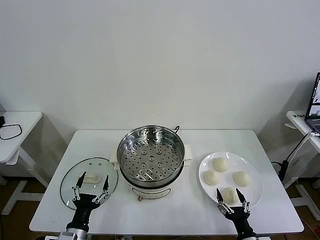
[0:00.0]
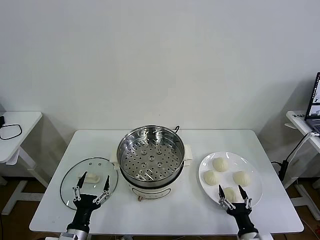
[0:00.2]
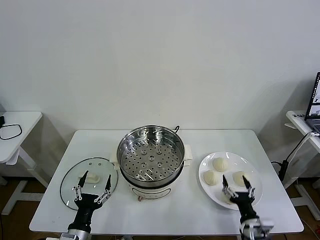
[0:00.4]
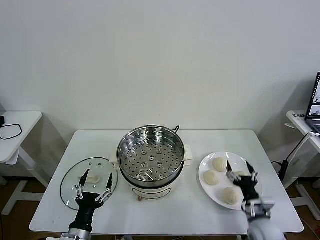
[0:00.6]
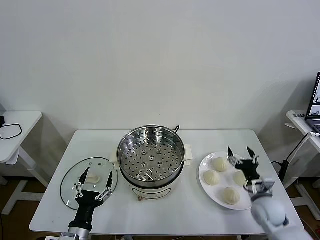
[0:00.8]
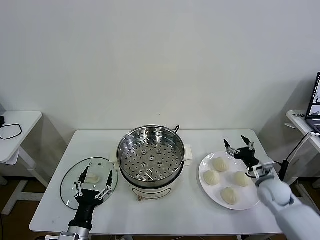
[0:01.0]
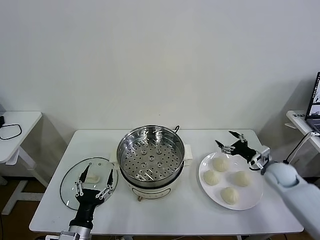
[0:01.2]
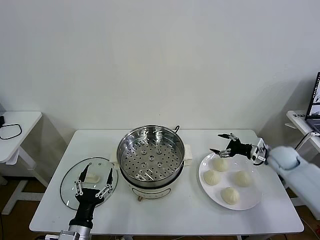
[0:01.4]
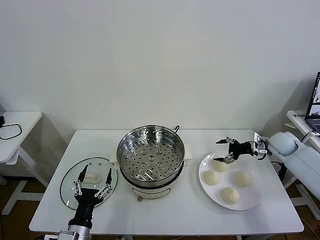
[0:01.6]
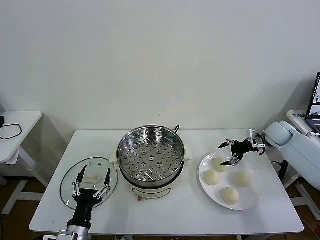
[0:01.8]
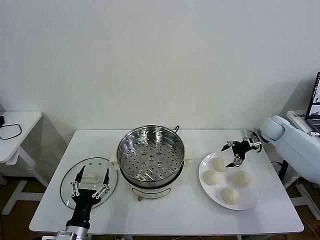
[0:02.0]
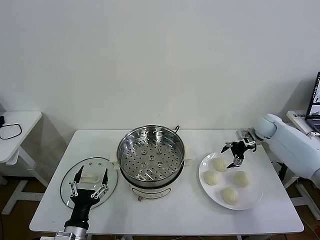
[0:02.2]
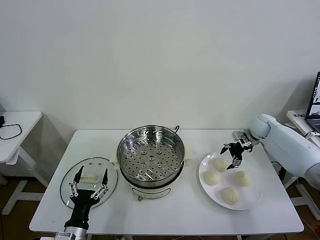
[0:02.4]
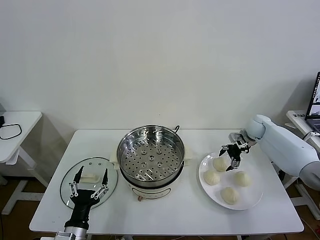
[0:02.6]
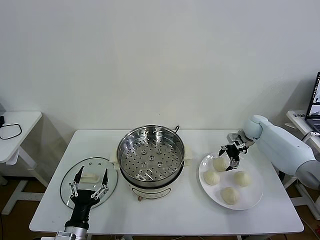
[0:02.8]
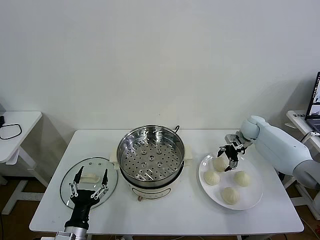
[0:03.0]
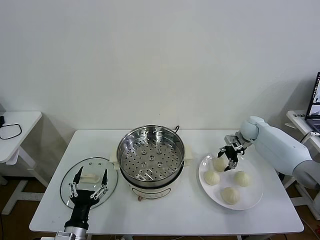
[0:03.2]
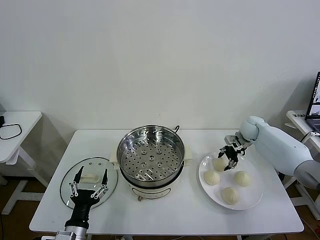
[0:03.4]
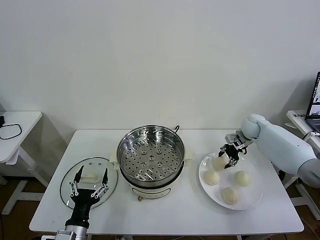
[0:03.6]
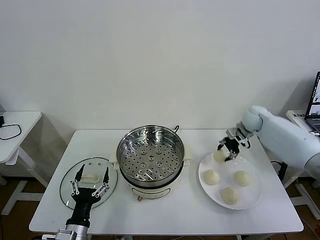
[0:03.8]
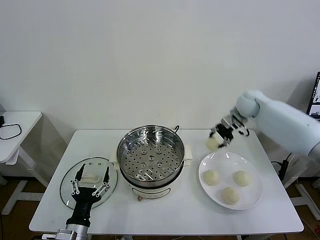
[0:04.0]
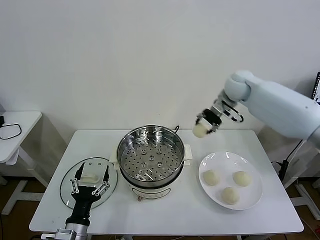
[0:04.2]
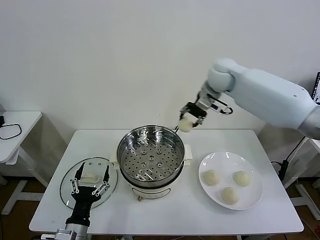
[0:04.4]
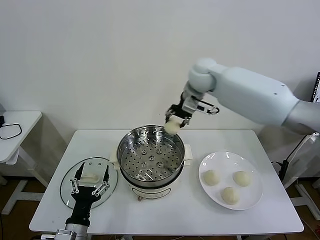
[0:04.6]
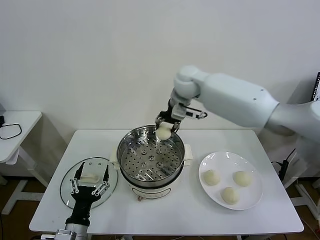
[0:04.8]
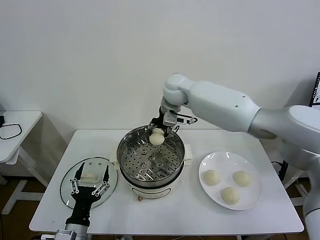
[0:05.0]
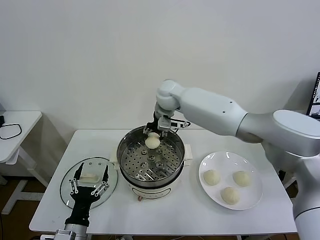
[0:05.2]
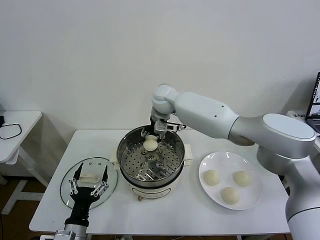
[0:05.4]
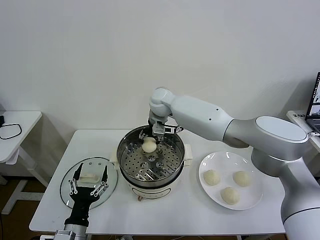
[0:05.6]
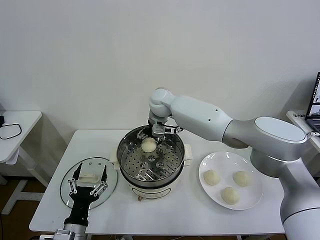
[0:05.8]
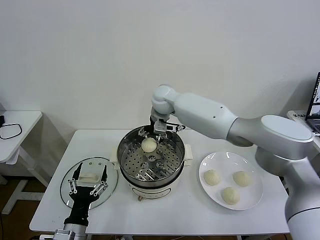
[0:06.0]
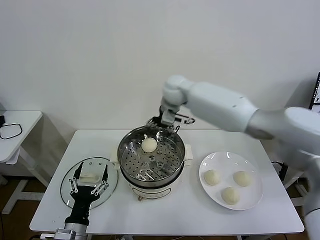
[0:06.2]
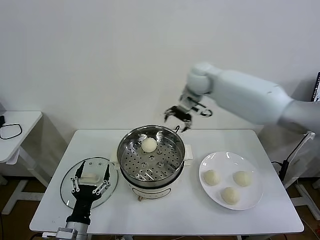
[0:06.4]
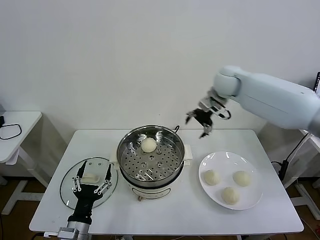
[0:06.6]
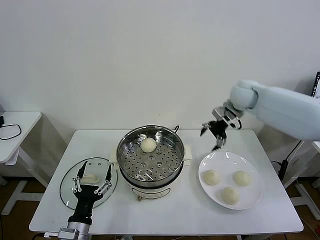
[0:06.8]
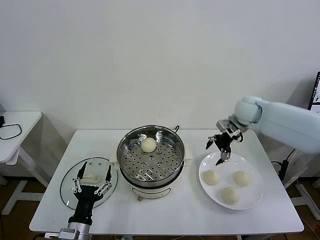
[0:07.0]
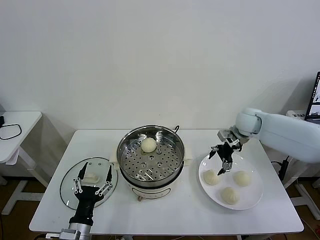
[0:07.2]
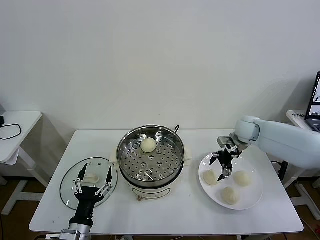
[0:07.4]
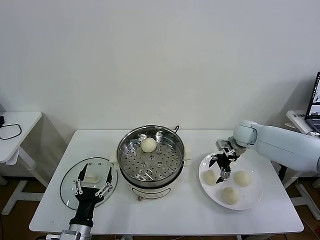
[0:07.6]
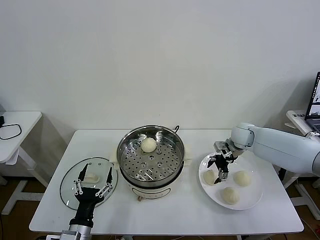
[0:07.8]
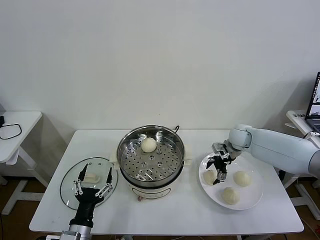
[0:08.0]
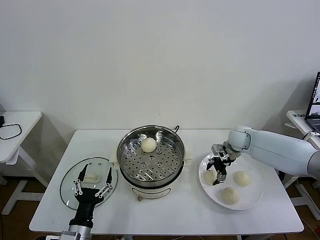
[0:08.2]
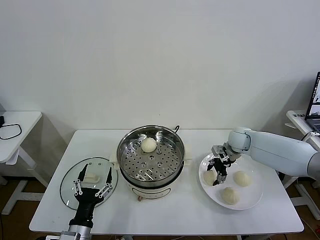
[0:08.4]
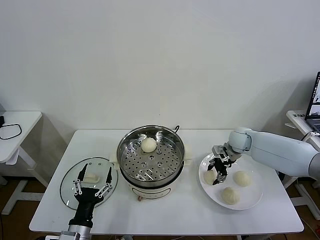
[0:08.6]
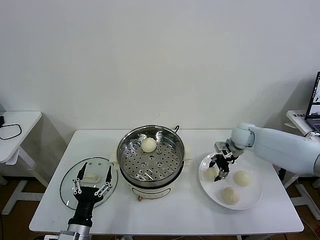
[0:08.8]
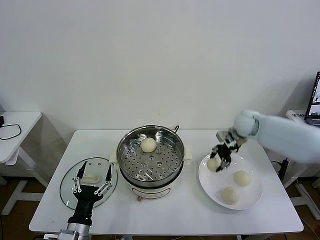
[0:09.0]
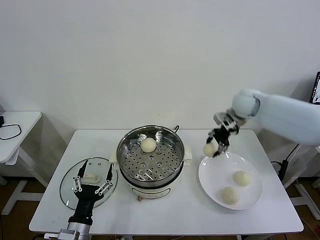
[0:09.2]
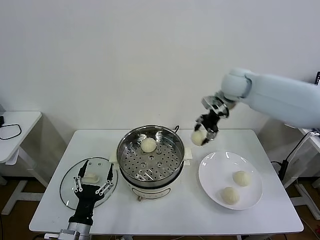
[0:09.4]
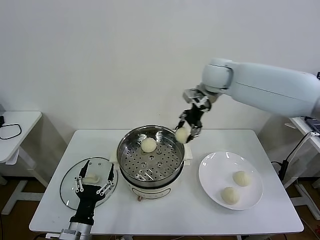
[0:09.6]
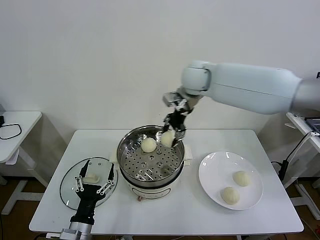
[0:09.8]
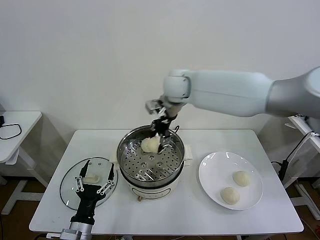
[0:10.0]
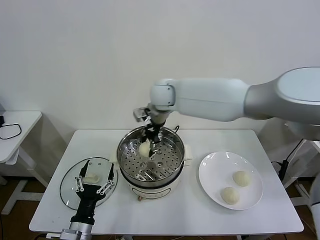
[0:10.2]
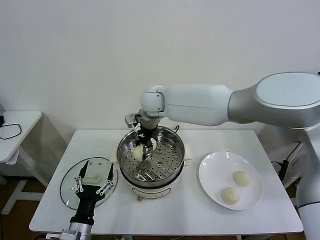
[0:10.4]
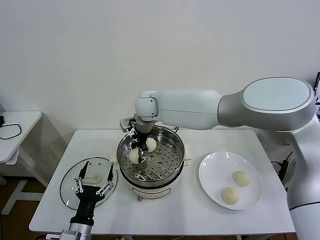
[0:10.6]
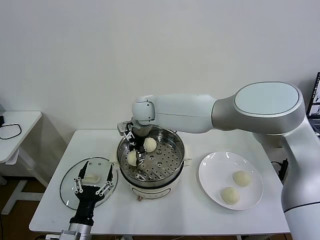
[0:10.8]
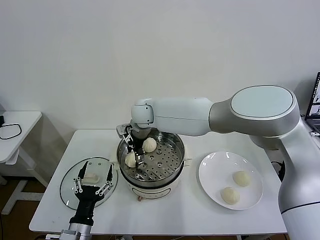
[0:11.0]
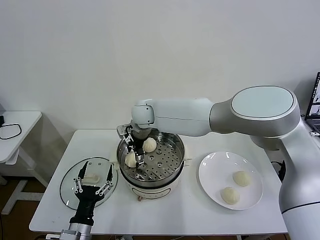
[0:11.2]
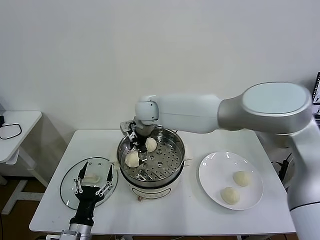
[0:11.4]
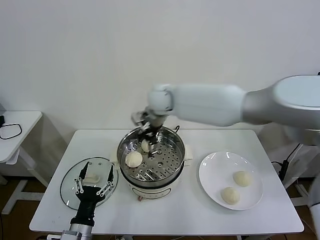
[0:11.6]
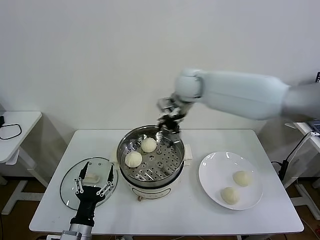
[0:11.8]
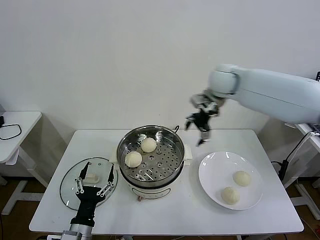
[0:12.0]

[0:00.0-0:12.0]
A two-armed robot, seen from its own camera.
Task of the whole recording: take steamed baozi put them in steamer then cover it.
Step, 0:00.0 to 0:03.4: Grasp the baozi in the plate with right gripper.
Step, 0:03.6 to 0:06.0: Place the baozi on the steamer with right gripper.
Step, 0:06.2 to 0:08.6: Grasp the baozi in the plate with right gripper.
Step, 0:08.8 to 0:11.4: Place the baozi on the steamer with right gripper.
0:01.6 to 0:03.0: The right gripper goes about 10 cm to the left and forward.
0:03.0 to 0:04.4: The right gripper shifts roughly 35 cm upward and to the left, and closes up.
0:04.4 to 0:06.0: The right gripper heads to the left and downward, covering about 15 cm, and opens its fingers.
0:06.0 to 0:07.6: The right gripper shifts roughly 35 cm to the right and downward.
0:07.6 to 0:09.0: The right gripper moves upward, roughly 10 cm, and closes.
0:09.0 to 0:10.4: The right gripper goes some 35 cm to the left.
0:10.4 to 0:12.0: The right gripper moves to the right, about 25 cm, and opens up.

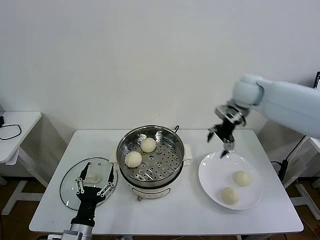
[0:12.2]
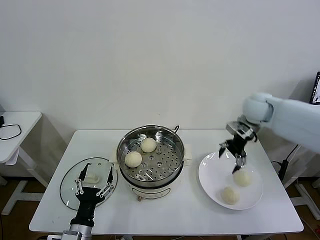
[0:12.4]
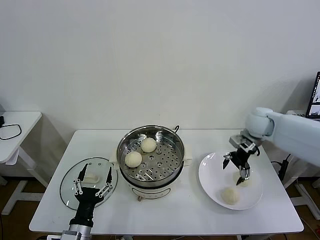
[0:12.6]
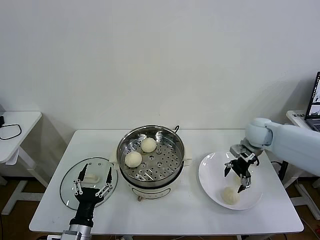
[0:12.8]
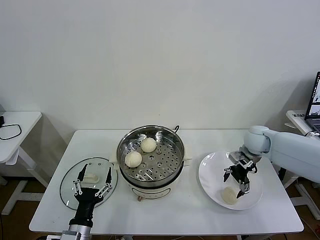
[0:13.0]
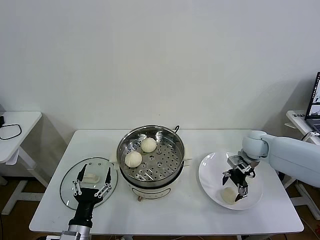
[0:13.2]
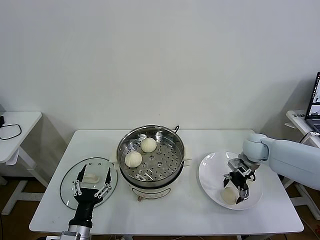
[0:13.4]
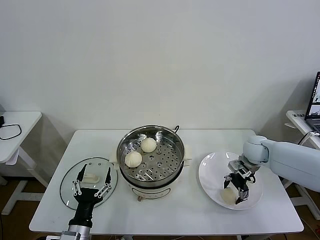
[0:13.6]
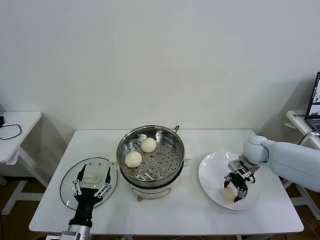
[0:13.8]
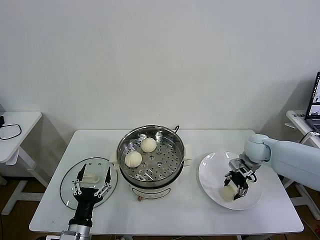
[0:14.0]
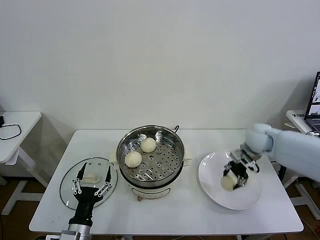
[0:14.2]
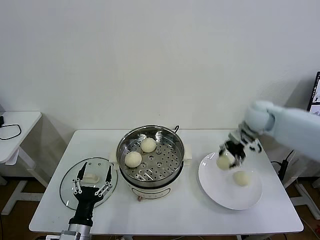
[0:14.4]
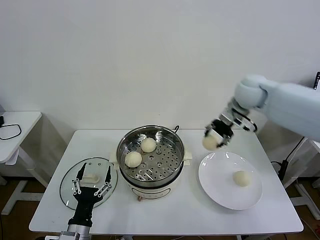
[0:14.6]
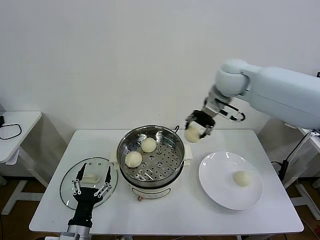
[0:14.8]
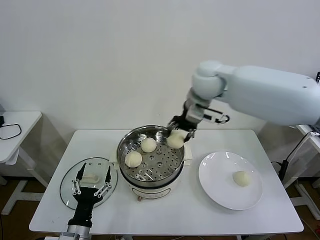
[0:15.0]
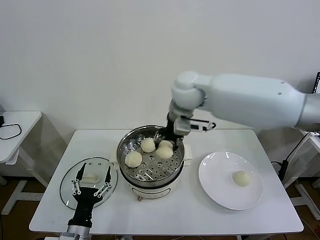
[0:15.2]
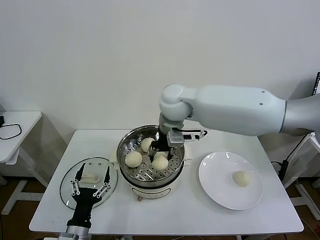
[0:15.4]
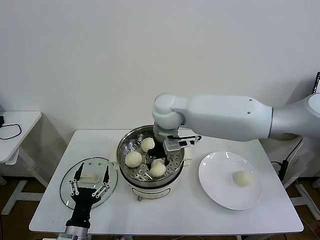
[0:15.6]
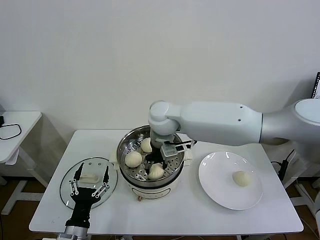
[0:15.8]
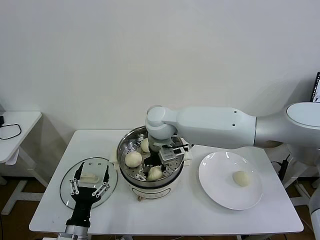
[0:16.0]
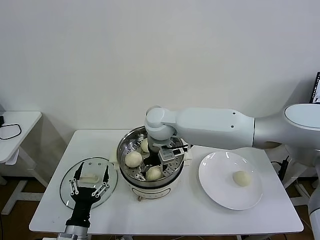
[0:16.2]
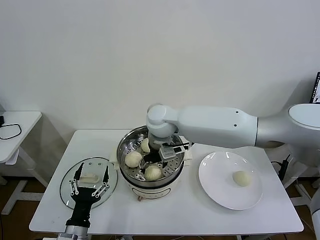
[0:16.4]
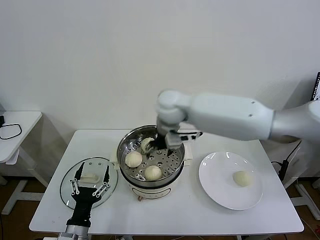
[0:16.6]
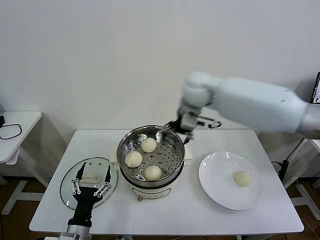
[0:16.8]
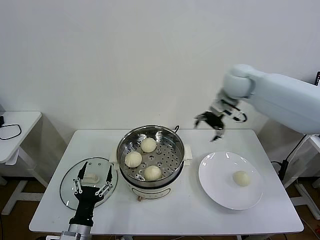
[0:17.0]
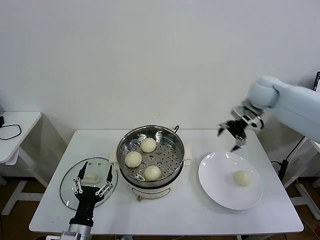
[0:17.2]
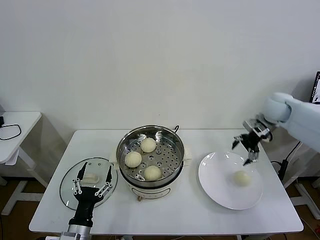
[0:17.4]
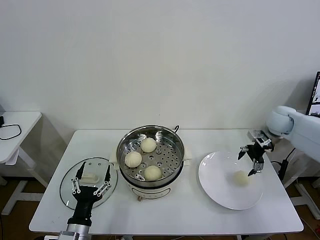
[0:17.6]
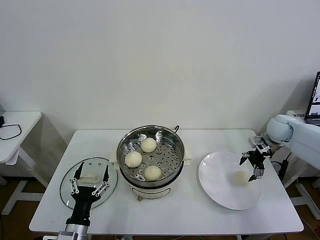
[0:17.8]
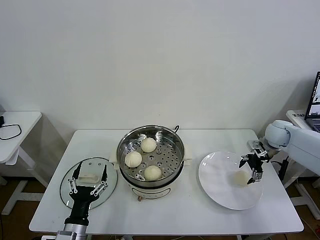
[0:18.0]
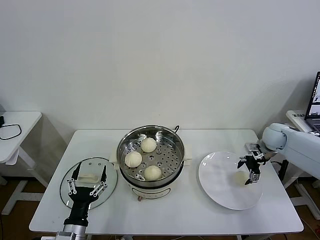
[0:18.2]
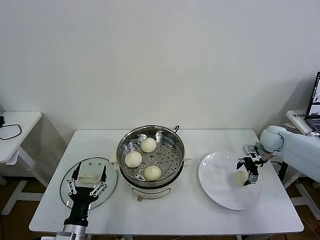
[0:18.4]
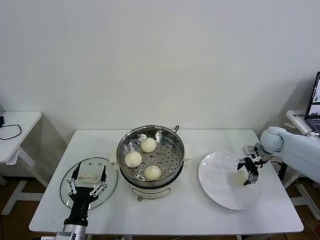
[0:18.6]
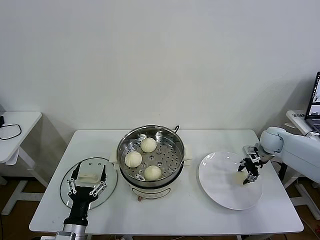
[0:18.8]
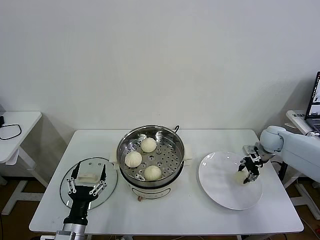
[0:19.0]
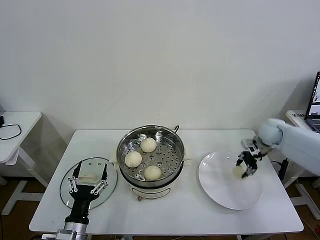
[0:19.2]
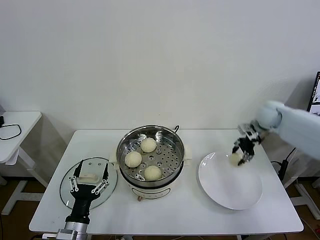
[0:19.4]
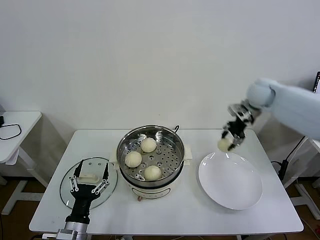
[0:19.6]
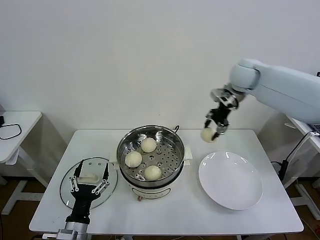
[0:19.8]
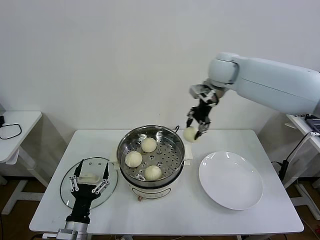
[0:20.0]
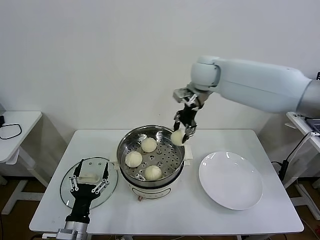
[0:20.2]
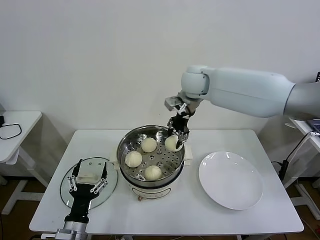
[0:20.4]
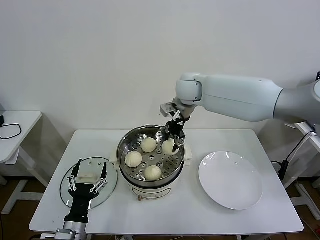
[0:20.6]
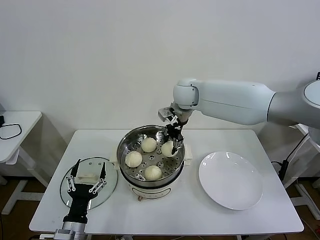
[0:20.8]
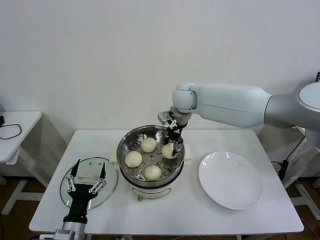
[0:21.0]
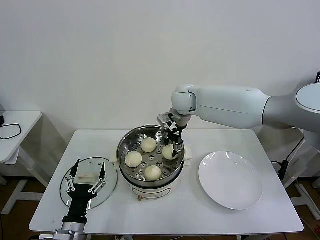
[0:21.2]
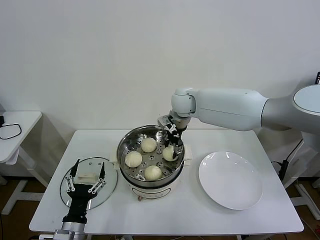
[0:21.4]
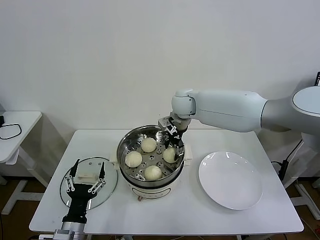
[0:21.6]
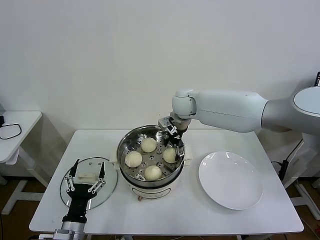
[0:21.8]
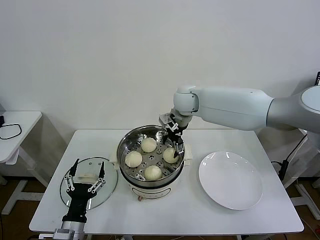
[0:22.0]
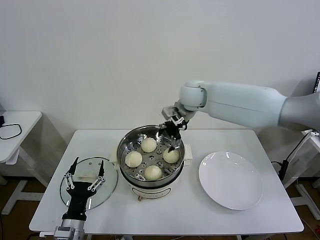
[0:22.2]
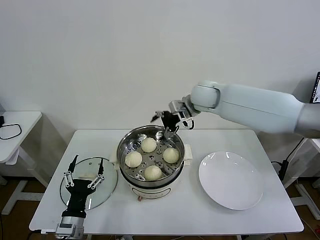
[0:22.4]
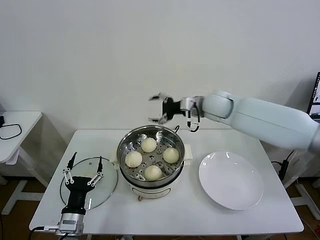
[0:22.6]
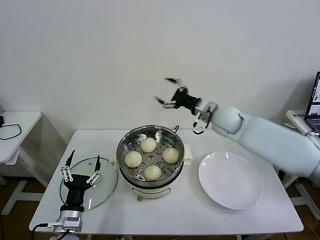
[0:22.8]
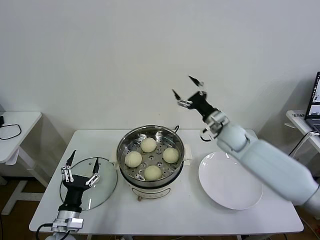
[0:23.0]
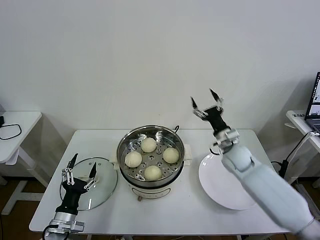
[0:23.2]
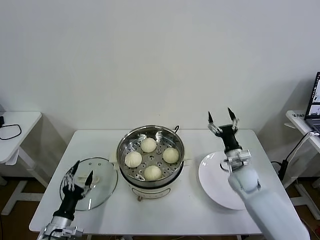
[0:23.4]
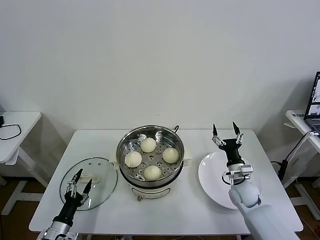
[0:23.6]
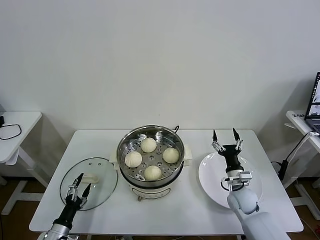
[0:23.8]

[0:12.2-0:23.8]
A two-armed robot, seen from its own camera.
Task of the whole recording: take steamed baozi put them in steamer then cover it.
Step, 0:12.2 to 0:14.0: Grasp the baozi in the plate with right gripper.
Step, 0:14.2 to 0:16.4: Place the baozi on the steamer with right gripper.
Step, 0:16.6 to 0:18.8: Grasp the baozi in the plate with right gripper.
Step, 0:19.2 to 0:21.6: Place the baozi on the steamer with right gripper.
0:12.2 to 0:13.6: The right gripper moves downward, about 20 cm.
0:13.6 to 0:15.0: The right gripper is displaced upward and to the left by roughly 35 cm, and closes its fingers.
0:15.0 to 0:16.6: The right gripper is displaced to the left and downward by roughly 5 cm, and opens.
0:16.6 to 0:18.0: The right gripper shifts about 40 cm to the right and downward.
0:18.0 to 0:19.4: The right gripper goes about 5 cm upward, and closes up.
0:19.4 to 0:21.0: The right gripper goes roughly 30 cm to the left.
0:21.0 to 0:22.4: The right gripper travels to the right by roughly 5 cm, and opens its fingers.
0:22.4 to 0:23.8: The left gripper moves to the left and downward, some 15 cm; the right gripper is displaced downward, backward and to the right by roughly 40 cm.
